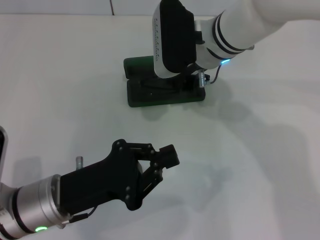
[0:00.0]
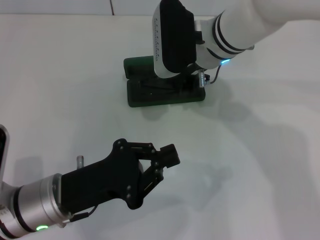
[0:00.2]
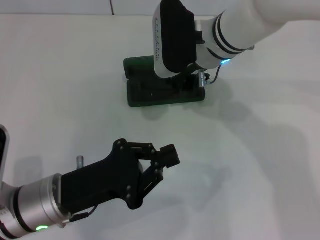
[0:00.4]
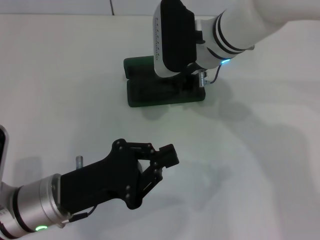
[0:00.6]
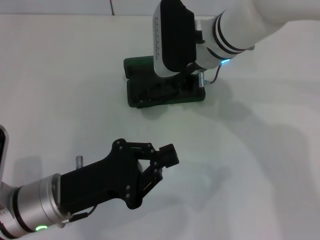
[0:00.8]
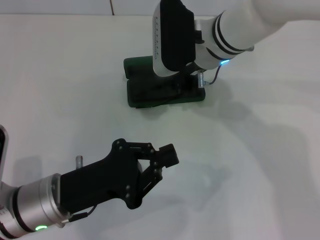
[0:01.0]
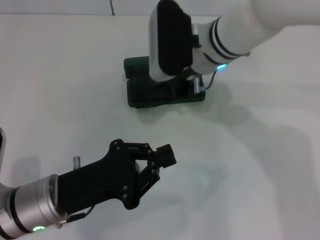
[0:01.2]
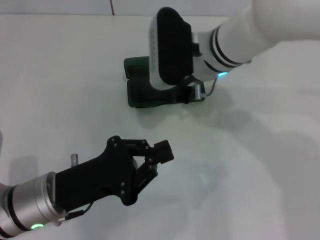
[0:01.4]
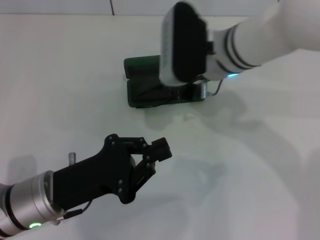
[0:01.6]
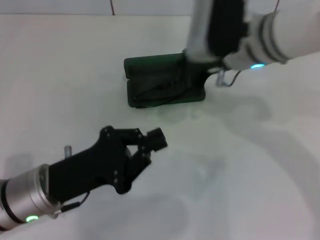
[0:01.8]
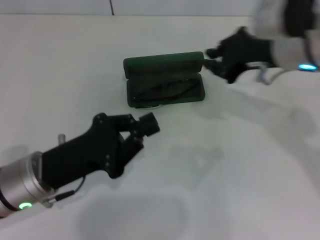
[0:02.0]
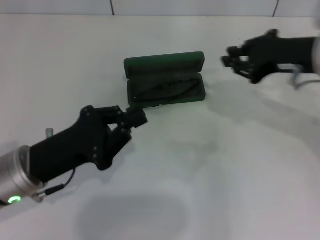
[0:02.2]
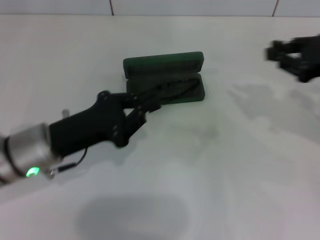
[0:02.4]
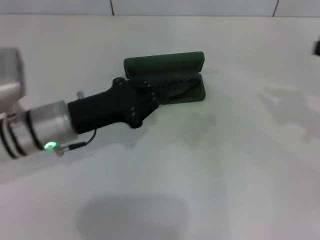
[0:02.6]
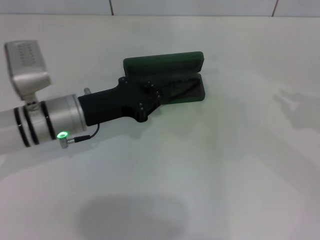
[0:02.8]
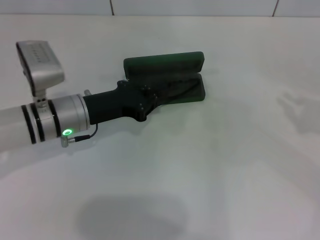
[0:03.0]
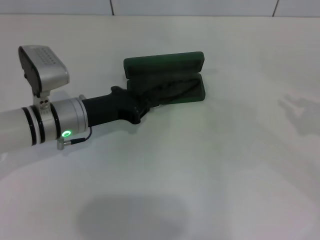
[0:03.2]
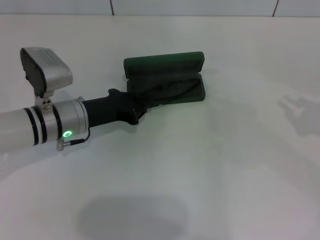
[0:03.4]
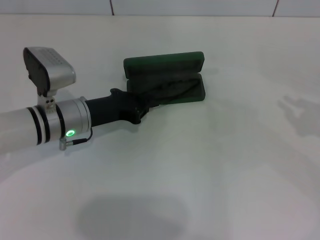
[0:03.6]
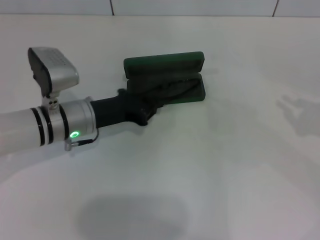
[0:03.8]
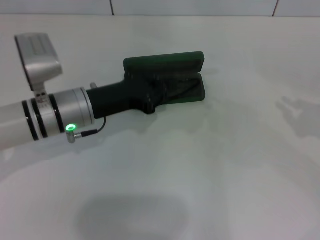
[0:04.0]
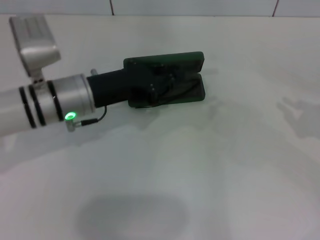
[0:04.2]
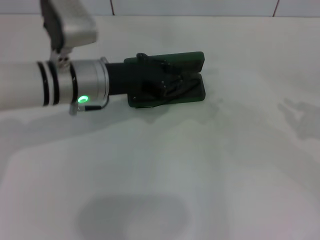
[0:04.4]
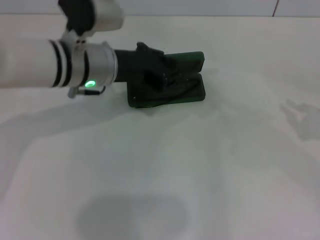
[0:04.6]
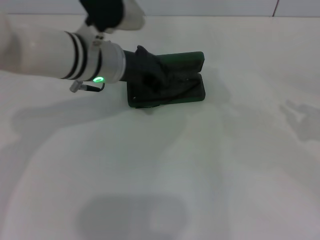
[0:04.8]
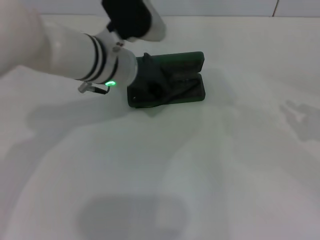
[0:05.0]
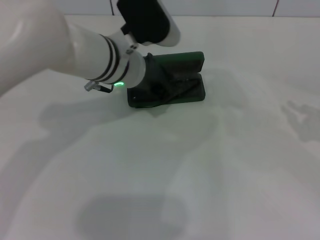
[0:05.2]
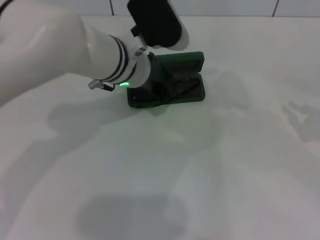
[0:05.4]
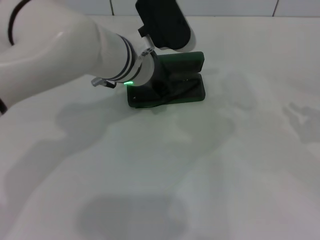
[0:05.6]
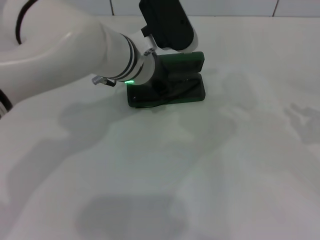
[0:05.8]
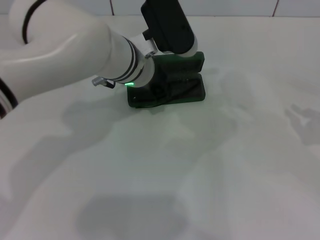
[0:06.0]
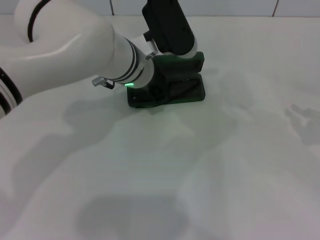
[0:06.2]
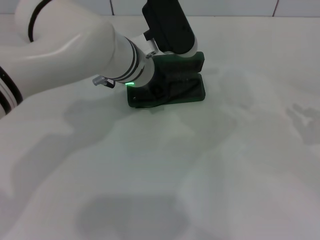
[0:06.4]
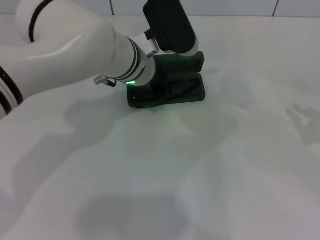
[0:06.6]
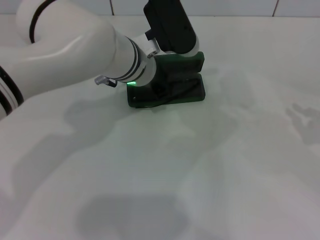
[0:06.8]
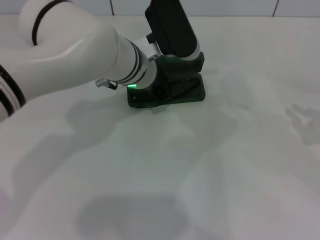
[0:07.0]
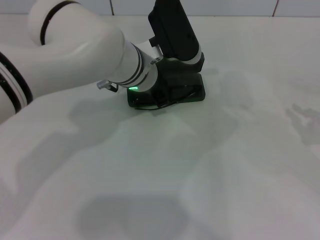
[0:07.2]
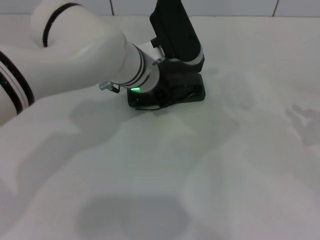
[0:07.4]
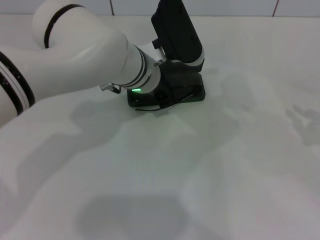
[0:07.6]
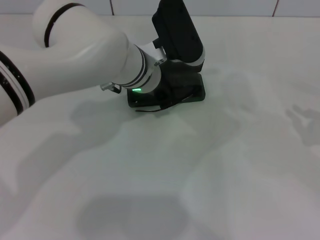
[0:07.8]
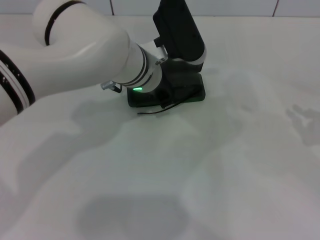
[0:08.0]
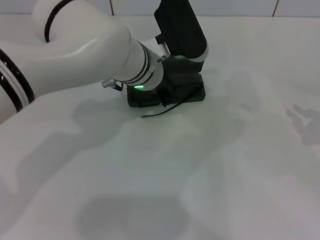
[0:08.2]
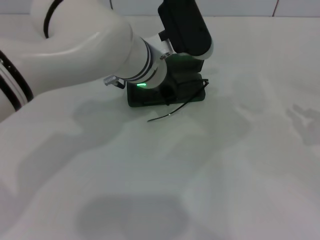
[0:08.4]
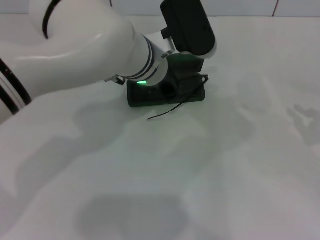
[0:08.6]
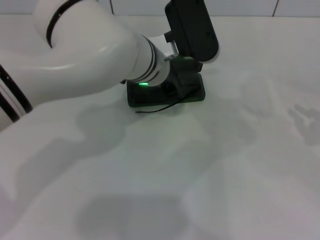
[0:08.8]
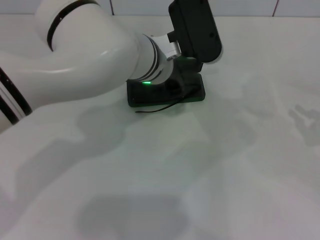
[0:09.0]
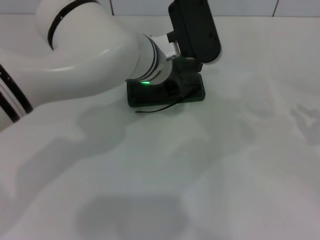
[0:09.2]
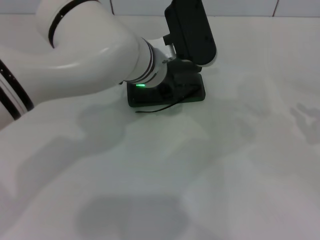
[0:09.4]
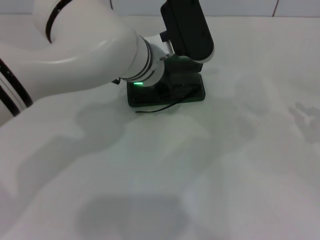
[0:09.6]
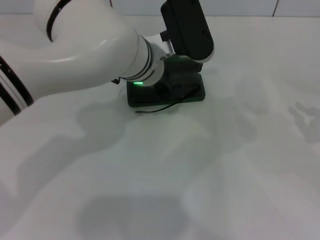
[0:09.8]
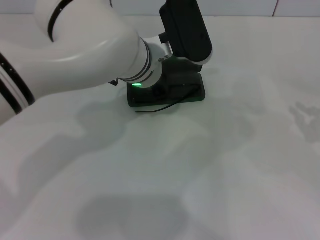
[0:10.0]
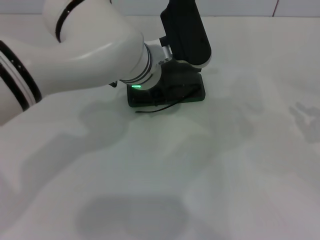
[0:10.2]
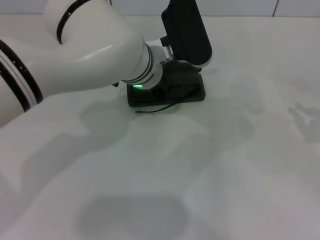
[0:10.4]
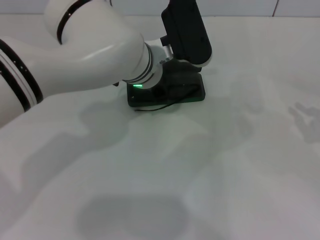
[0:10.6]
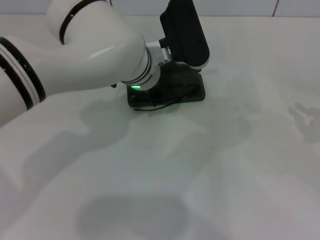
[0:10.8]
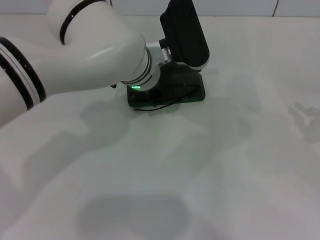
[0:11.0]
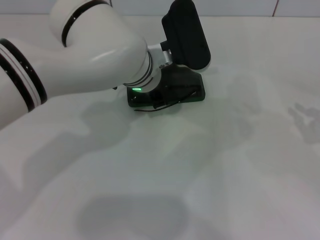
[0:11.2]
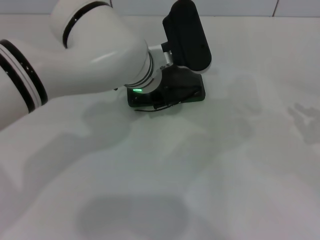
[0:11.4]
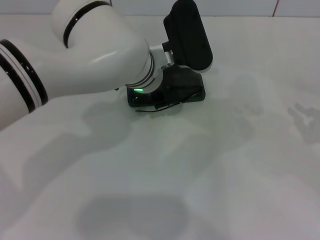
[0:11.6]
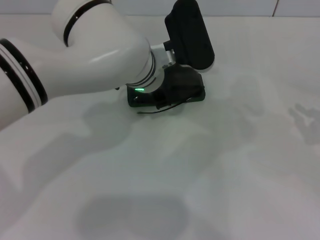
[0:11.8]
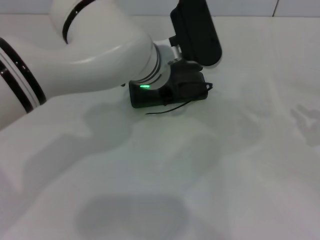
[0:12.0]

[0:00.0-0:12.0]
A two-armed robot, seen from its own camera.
Step, 0:01.0 to 0:11.4: Grab the glasses with your left hand.
0:00.0 to 0:01.6: The grippers stay close to where they were, moving slightly.
0:01.6 to 0:03.0: The left gripper is displaced forward by about 15 cm; the right gripper travels to the right by roughly 30 cm.
0:03.0 to 0:04.4: The left gripper heads upward, covering approximately 5 cm.
0:04.4 to 0:06.0: The left gripper heads to the right, covering some 10 cm.
0:06.0 to 0:12.0: The grippers make only small movements.

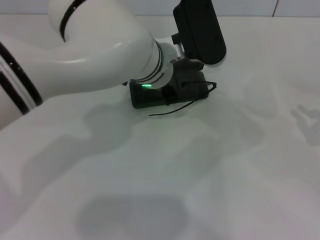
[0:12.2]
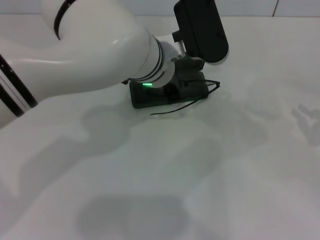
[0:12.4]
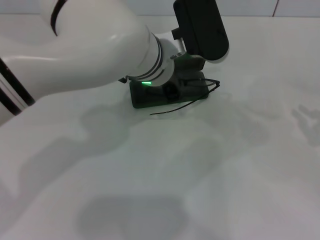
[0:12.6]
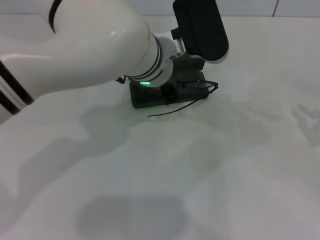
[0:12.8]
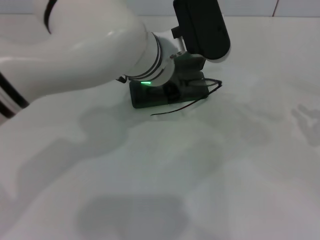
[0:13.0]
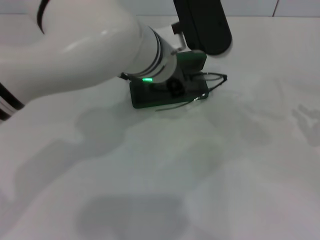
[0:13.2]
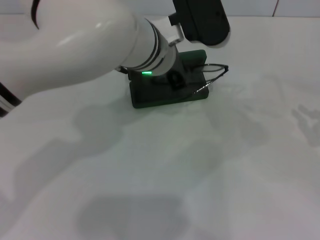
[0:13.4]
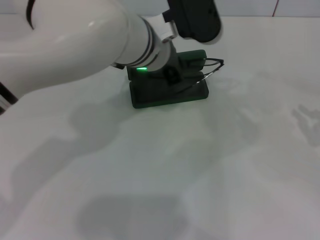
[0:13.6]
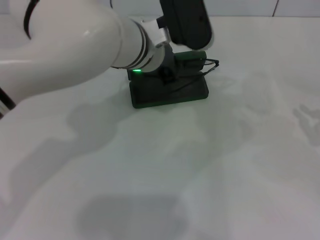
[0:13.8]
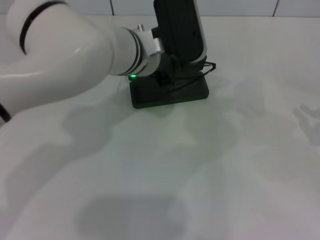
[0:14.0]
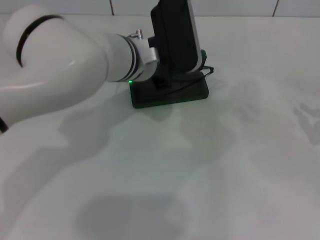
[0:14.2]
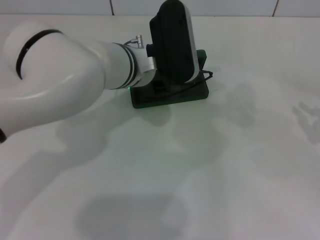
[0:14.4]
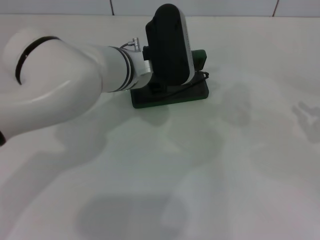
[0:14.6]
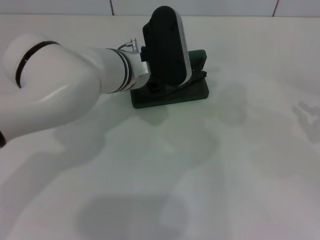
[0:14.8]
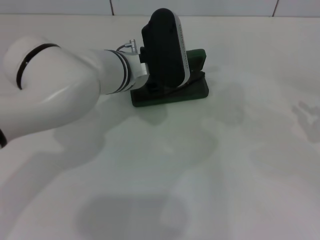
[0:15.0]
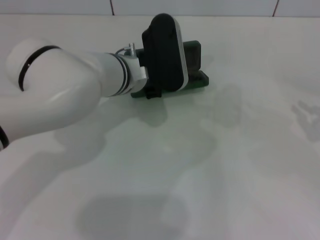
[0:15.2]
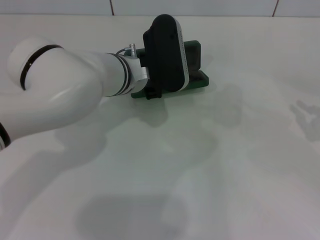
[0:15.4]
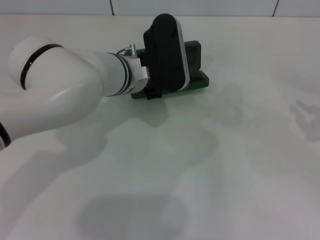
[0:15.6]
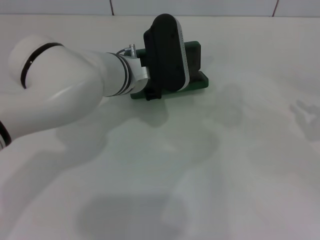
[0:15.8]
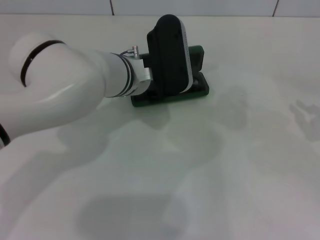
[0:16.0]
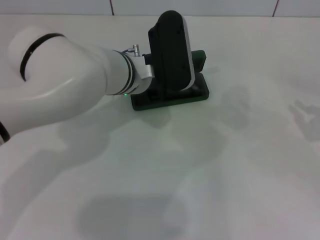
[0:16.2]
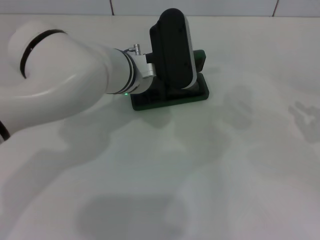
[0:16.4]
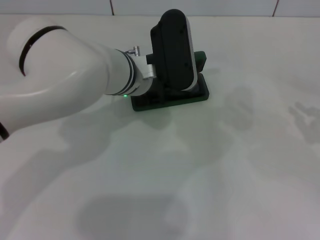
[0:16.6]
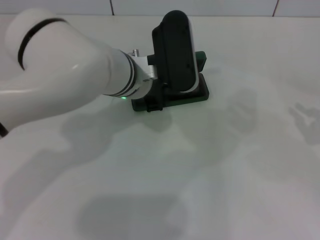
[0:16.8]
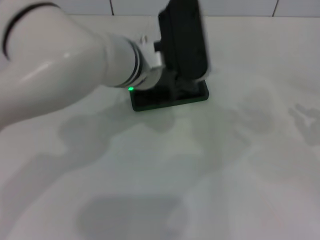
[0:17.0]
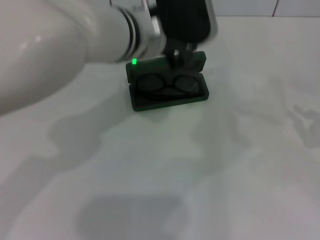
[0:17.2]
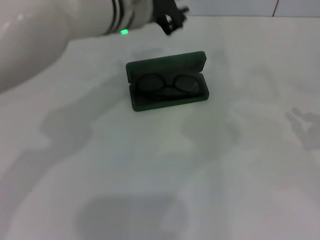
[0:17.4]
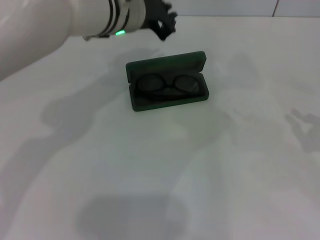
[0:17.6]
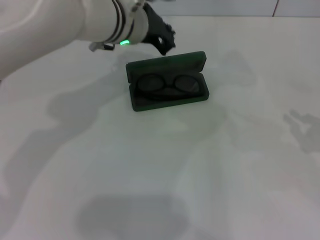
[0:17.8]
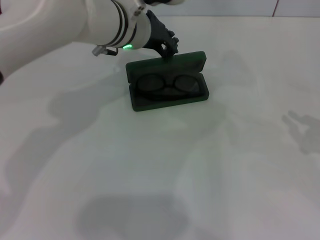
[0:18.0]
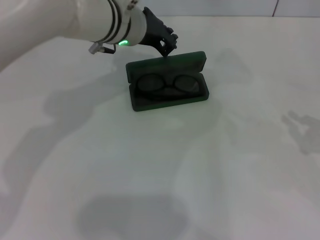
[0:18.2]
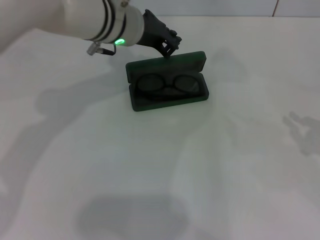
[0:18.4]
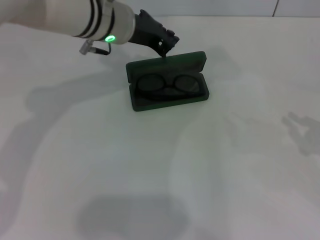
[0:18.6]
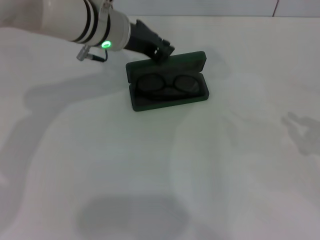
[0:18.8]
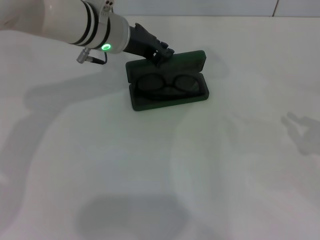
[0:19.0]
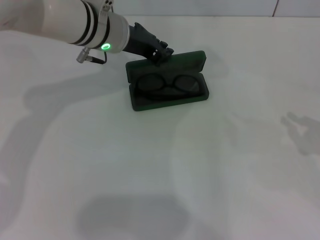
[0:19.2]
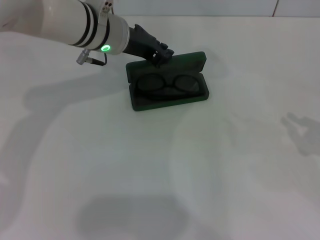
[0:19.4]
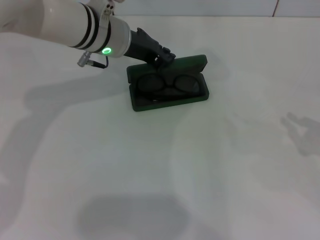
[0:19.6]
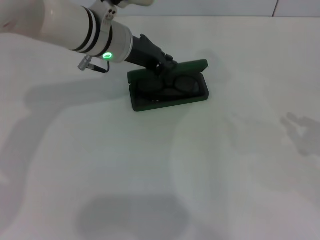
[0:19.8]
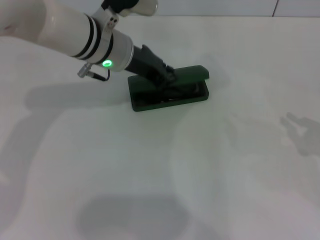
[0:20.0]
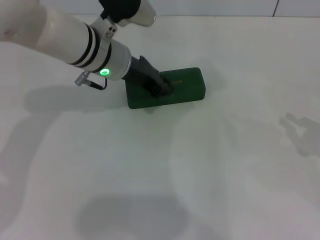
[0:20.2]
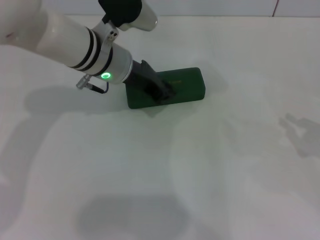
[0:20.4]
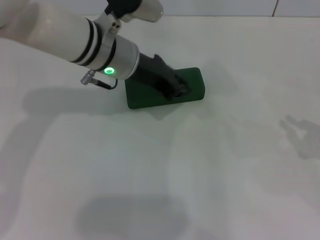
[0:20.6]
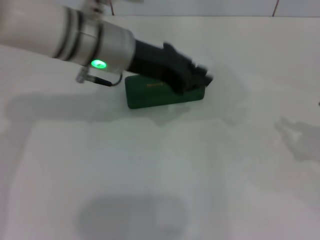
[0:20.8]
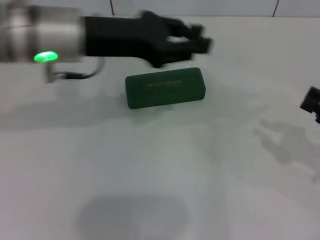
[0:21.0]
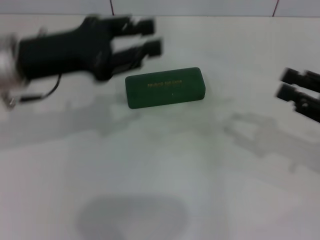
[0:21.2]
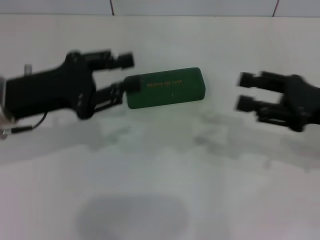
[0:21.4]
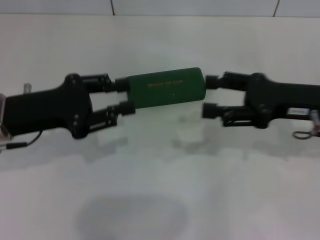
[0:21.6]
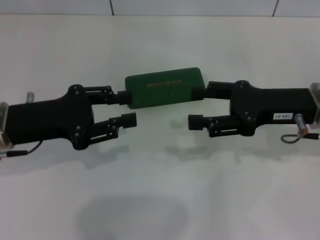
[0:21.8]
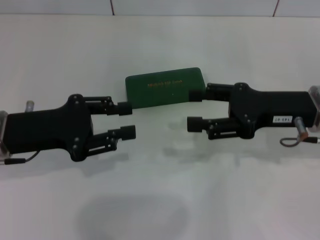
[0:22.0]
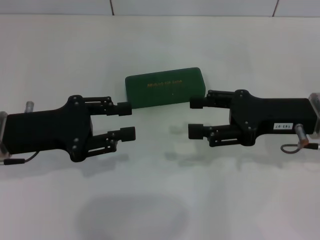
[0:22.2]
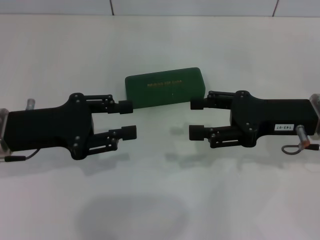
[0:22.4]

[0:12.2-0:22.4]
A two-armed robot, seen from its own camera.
Step, 0:12.2 to 0:16.4: Put the glasses into the case with your left hand.
Step, 0:16.6 to 0:20.0: Close the glasses case with your left hand.
0:12.2 to 0:13.6: The grippers make only small movements.
0:13.6 to 0:15.2: The left gripper shifts roughly 5 cm downward.
0:15.2 to 0:16.6: The left gripper opens.
0:16.6 to 0:18.0: The left gripper shifts by about 5 cm, and closes up.
0:18.0 to 0:19.4: The grippers stay close to where they were, moving slightly.
0:19.4 to 0:21.0: The left gripper travels backward, upward and to the left by some 10 cm.
0:21.0 to 0:22.4: The right gripper travels to the left and forward by roughly 15 cm, and opens its fingers. The left gripper travels downward, to the left and backward by some 15 cm, and opens.
